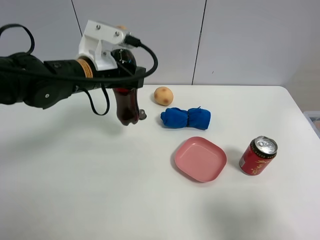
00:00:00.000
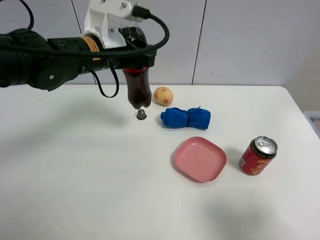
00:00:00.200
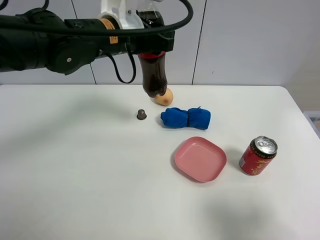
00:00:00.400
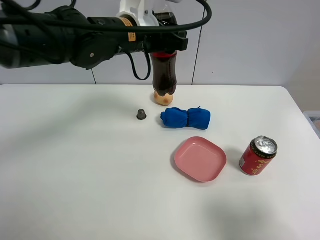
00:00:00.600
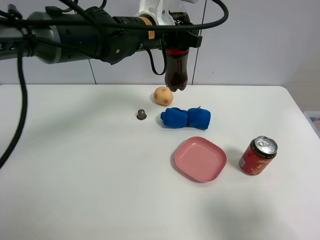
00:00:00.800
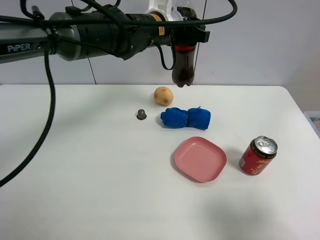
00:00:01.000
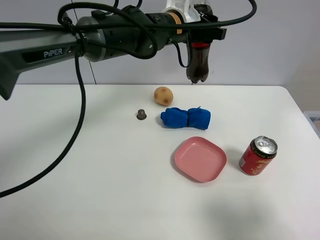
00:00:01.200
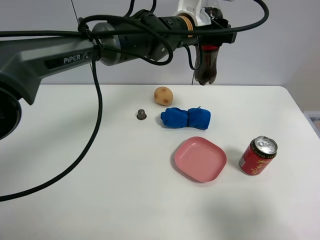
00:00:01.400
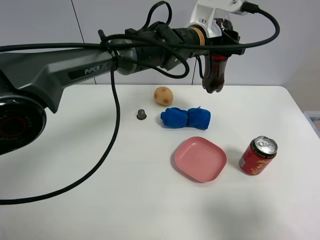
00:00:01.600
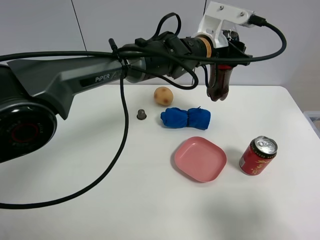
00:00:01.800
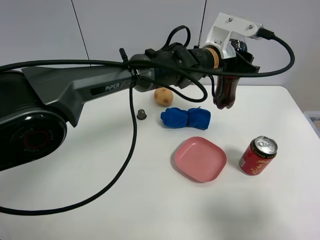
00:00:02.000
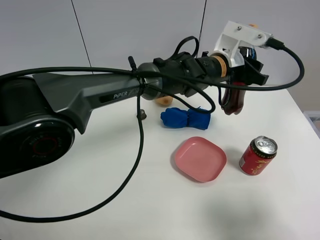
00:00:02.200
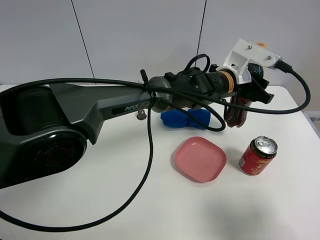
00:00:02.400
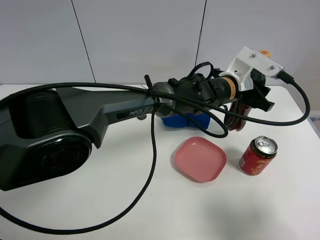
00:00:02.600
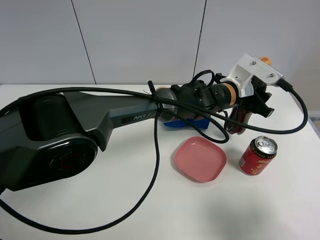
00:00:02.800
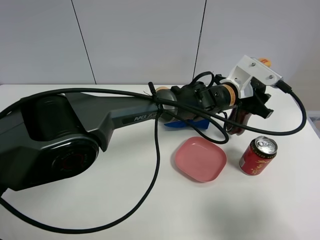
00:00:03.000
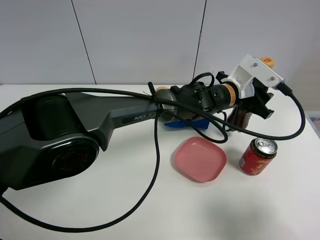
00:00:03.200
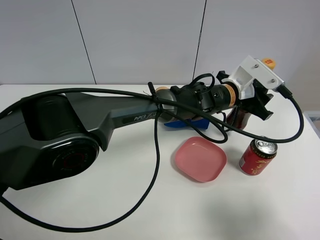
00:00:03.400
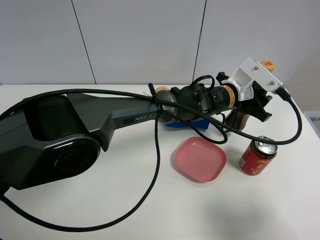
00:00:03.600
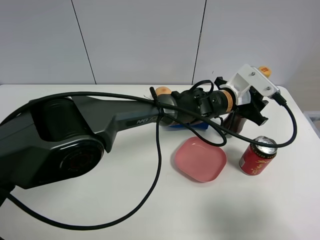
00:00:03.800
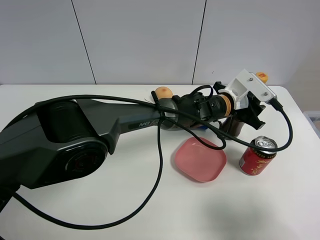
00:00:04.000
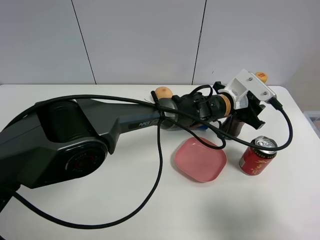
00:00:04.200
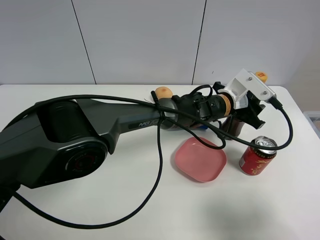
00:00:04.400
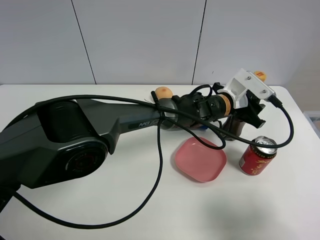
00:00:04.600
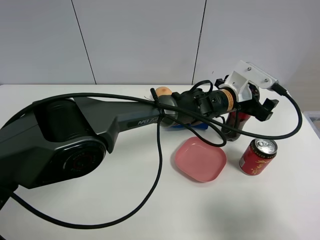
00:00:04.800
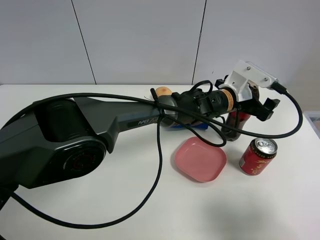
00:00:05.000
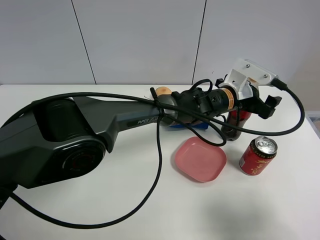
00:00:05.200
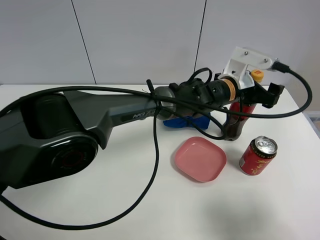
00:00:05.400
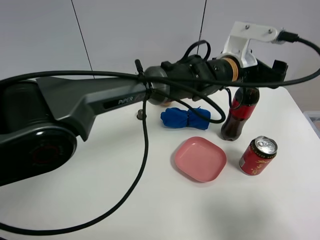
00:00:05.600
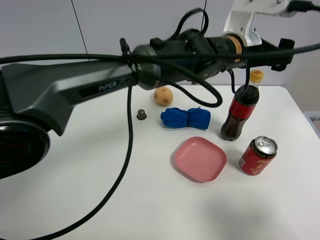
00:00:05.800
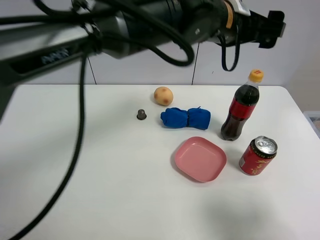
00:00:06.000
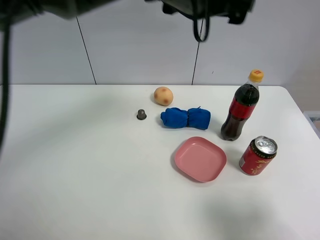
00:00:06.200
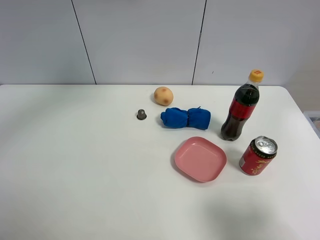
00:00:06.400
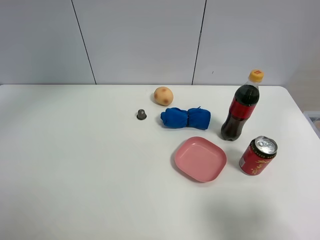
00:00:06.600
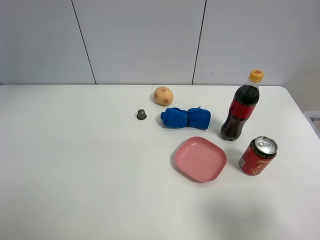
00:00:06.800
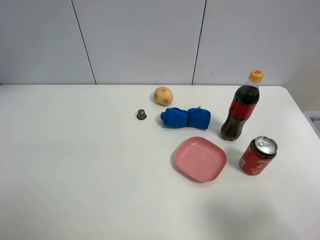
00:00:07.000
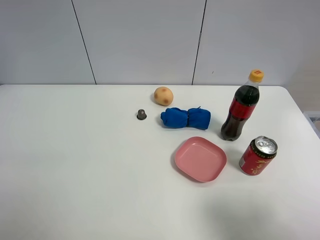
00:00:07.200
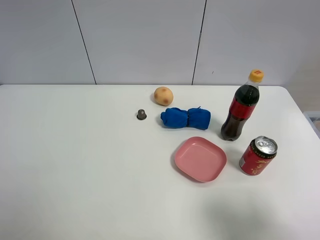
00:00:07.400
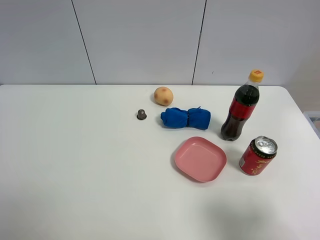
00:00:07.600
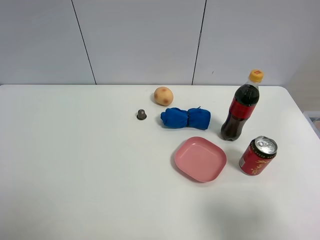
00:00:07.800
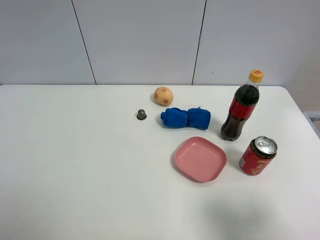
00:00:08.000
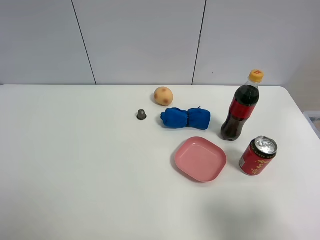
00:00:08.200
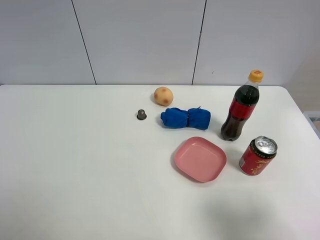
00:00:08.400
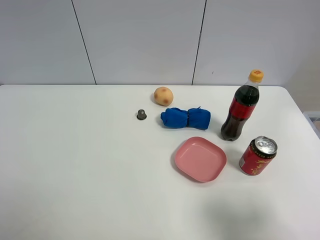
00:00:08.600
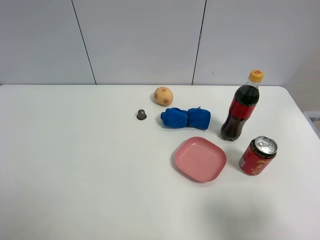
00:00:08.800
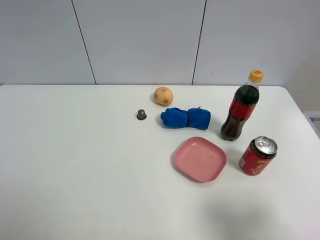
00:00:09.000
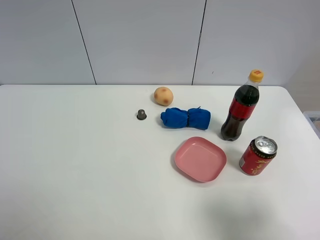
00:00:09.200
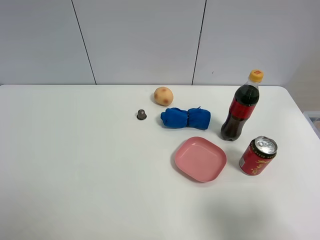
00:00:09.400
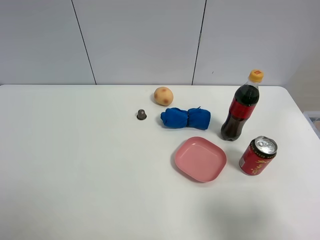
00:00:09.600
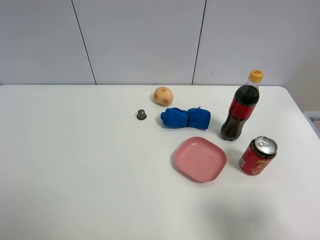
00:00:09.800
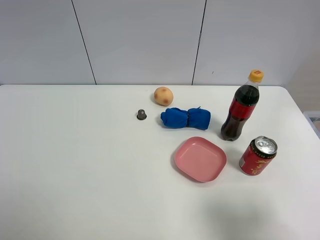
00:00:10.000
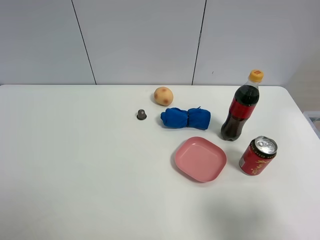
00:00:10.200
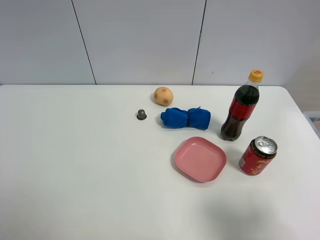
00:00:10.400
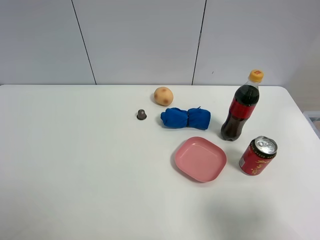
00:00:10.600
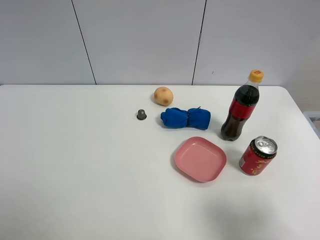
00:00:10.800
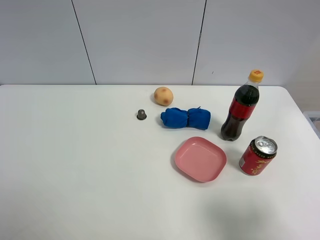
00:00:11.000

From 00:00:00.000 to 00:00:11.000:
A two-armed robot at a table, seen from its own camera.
Task of the whole recording: the gripper move the object.
Step, from 00:00:00.000 to 00:00:05.000: Place the coke on the table with the left gripper.
From 00:00:00.000 to 00:00:01.600: The left gripper is displaced to the right by some 20 cm.
From 00:00:01.600 to 00:00:03.200: The left gripper travels downward, to the right and backward by about 15 cm.
From 00:00:03.200 to 00:00:04.800: The left gripper opens.
From 00:00:04.800 to 00:00:06.200: The left gripper shifts roughly 30 cm upward and to the left.
From 00:00:06.200 to 00:00:07.800: The left gripper moves to the left and backward, about 40 cm.
From 00:00:09.400 to 00:00:11.000: Both grippers stay put.
